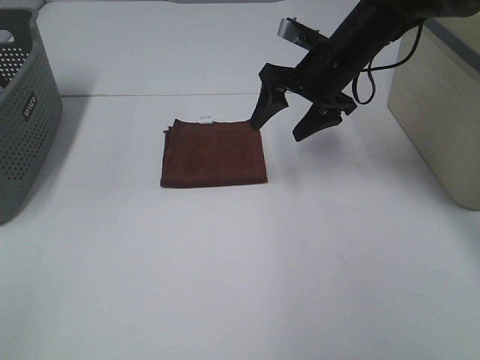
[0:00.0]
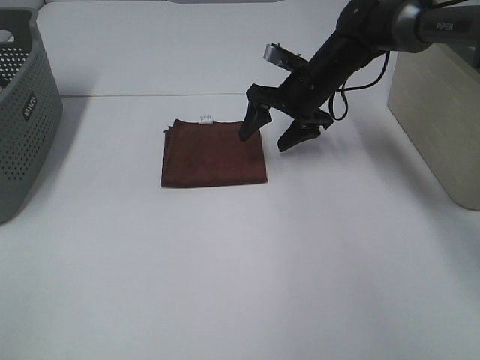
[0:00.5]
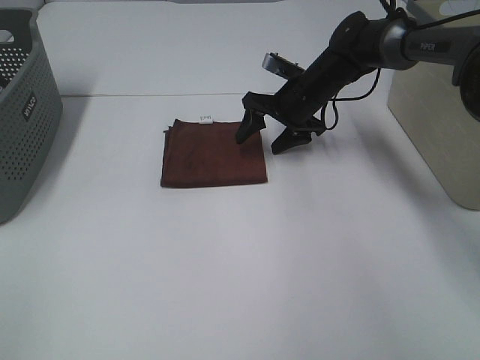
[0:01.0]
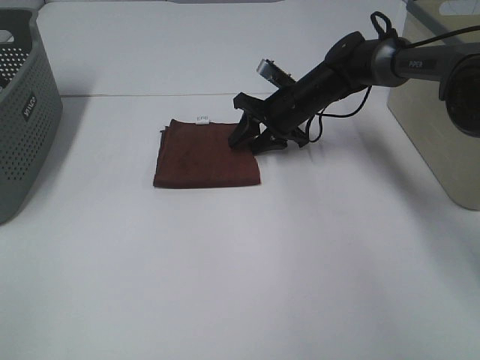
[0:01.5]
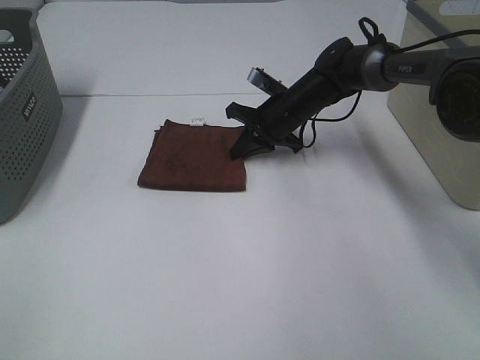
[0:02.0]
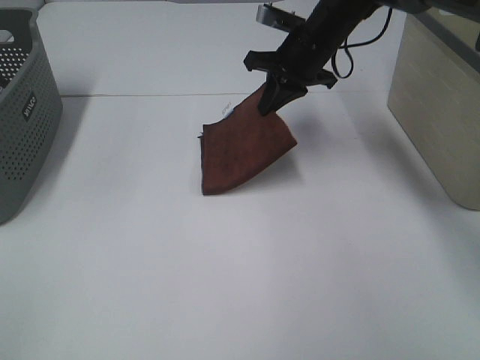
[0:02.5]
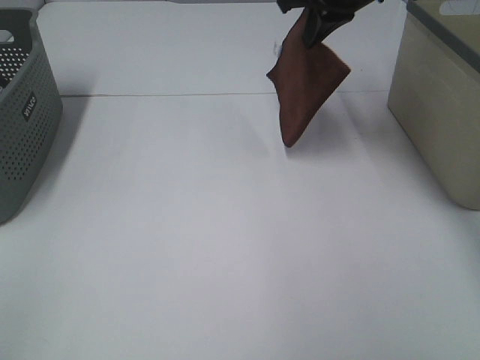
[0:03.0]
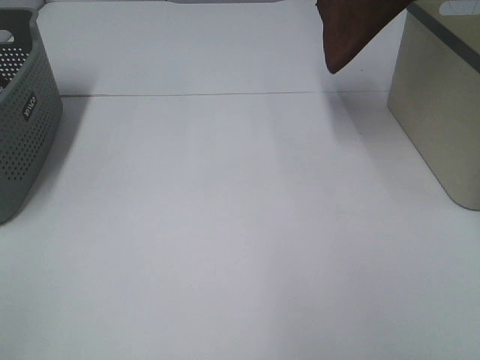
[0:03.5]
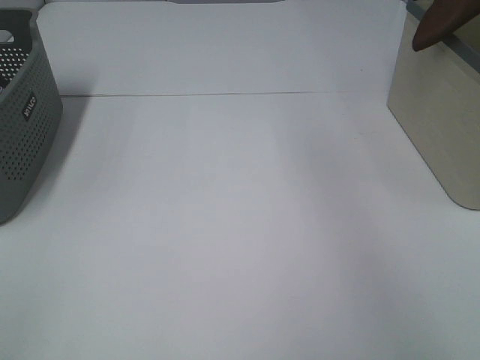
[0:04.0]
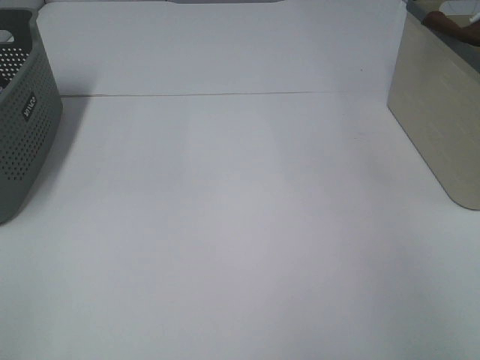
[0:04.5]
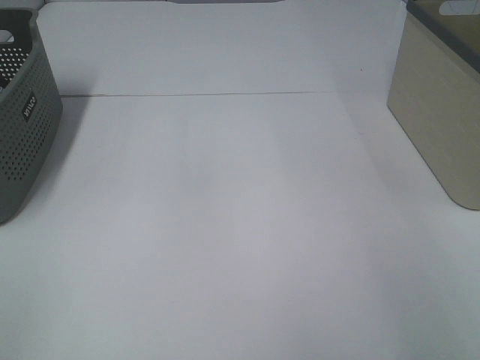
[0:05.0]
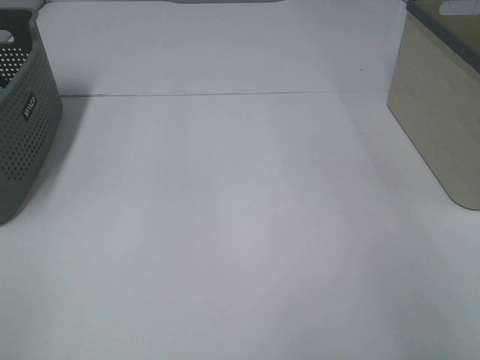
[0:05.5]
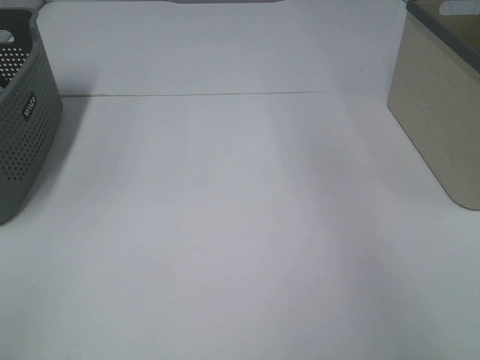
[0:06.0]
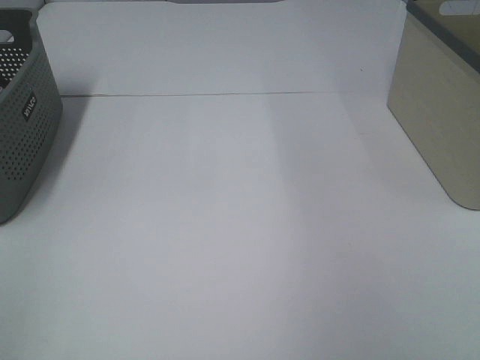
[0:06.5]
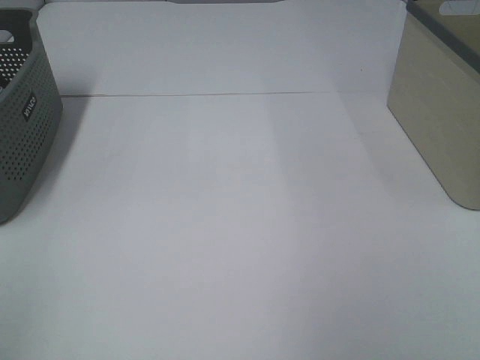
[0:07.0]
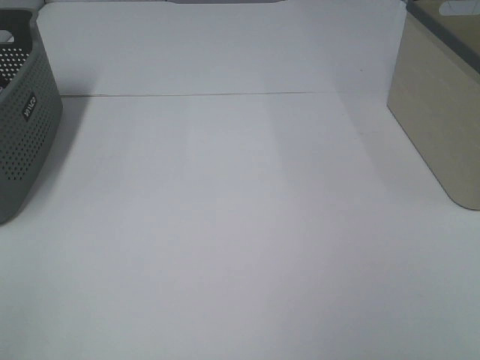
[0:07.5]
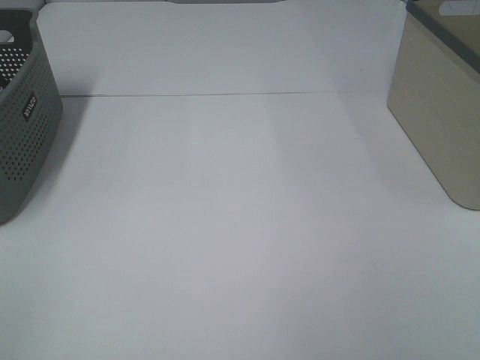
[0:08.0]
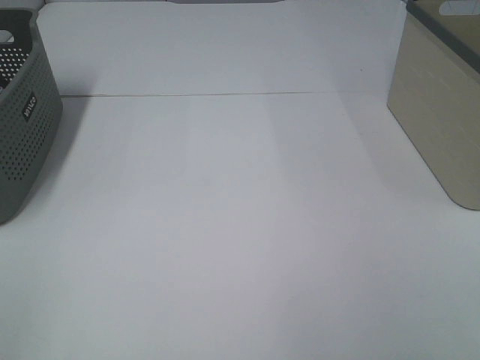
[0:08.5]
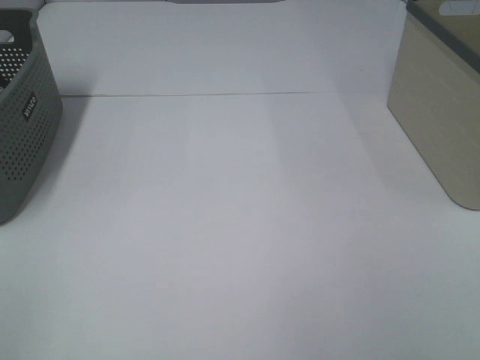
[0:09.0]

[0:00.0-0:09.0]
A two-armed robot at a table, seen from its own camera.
Step, 0:00.0 to 0:02.0: Right hand: grab the folded brown towel.
Step, 0:02.5 to 0:05.5: Right hand: place the brown towel in right basket.
0:00.0 to 0:02.0: The right gripper moves downward, about 10 cm, and closes up.
0:02.0 to 0:04.5: The right gripper shifts approximately 40 cm to the right and upward.
